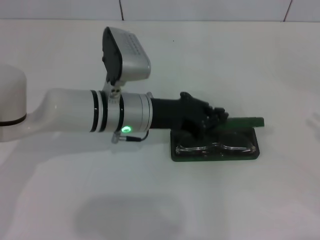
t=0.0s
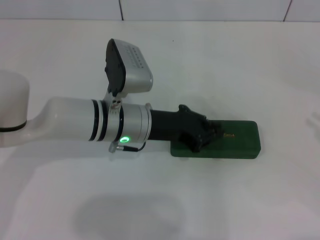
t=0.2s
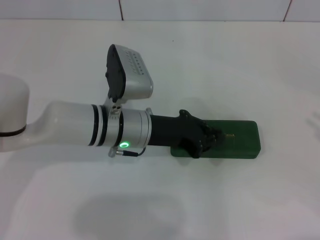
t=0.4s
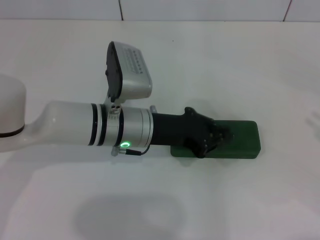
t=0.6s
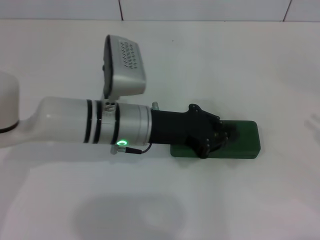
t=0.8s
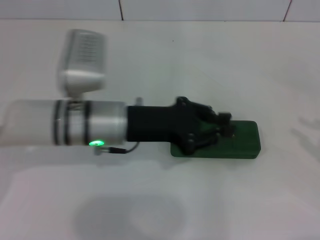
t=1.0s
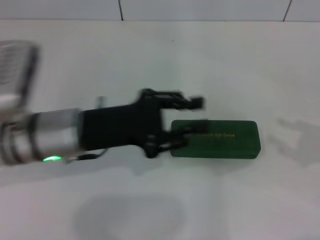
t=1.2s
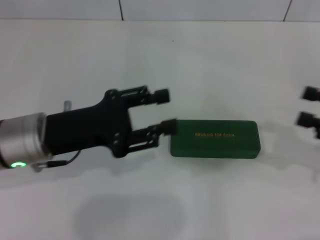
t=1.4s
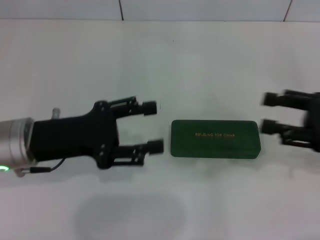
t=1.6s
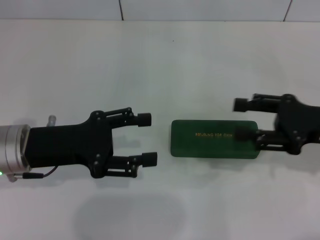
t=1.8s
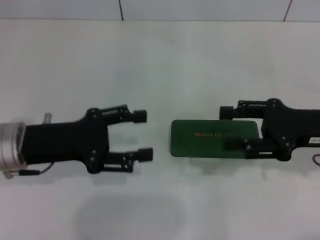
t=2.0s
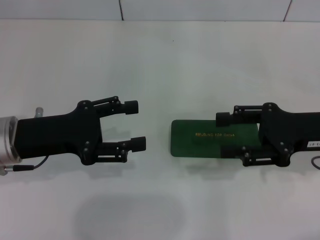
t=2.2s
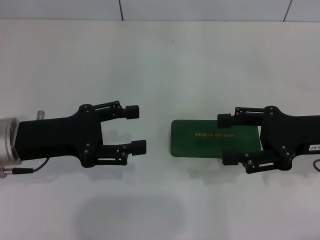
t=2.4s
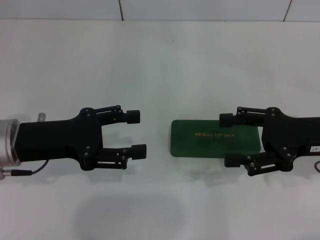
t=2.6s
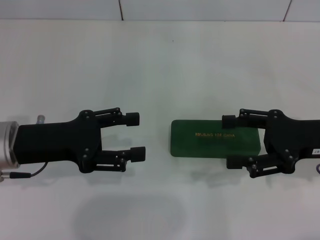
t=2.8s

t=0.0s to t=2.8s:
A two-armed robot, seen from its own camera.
t=0.0s to t=1.4s: The right gripper is displaced to the left and forward by roughly 10 cm. Meanwhile the left gripper is displaced to the left and backward by about 15 cm.
t=1.4s to t=2.8s: The left gripper opens its fingers. Meanwhile the right gripper goes approximately 10 cm to the left, and opens.

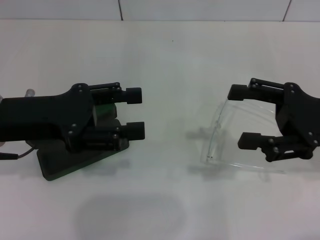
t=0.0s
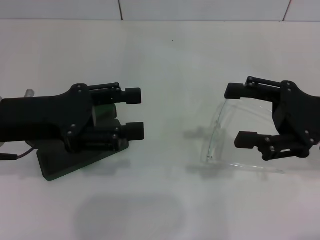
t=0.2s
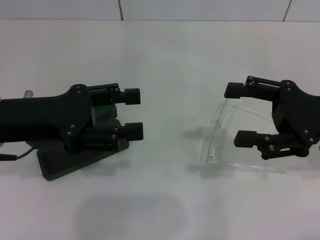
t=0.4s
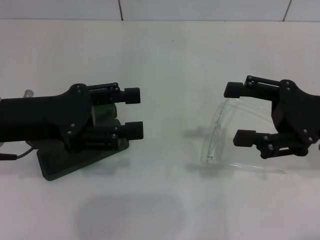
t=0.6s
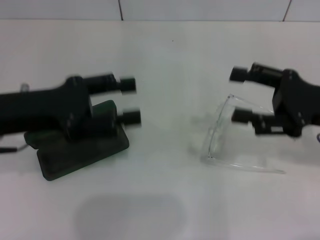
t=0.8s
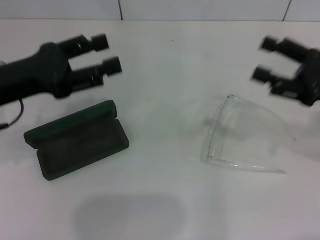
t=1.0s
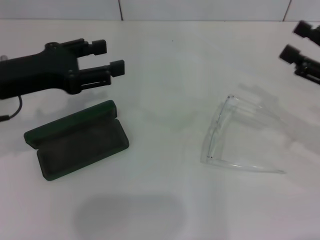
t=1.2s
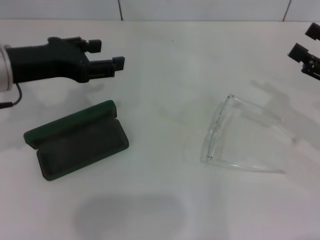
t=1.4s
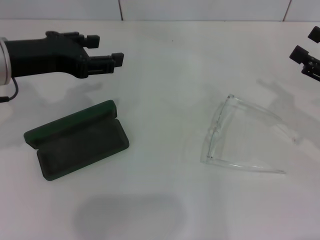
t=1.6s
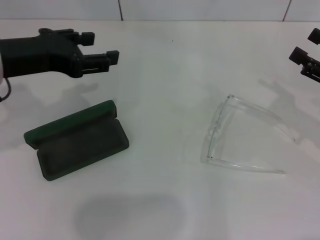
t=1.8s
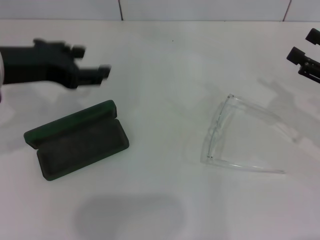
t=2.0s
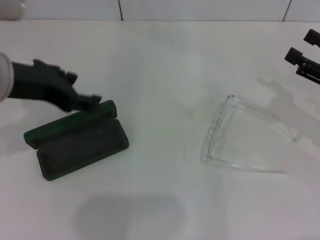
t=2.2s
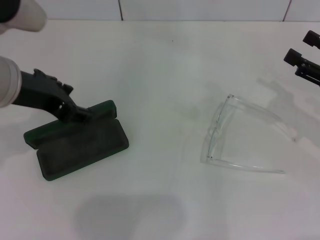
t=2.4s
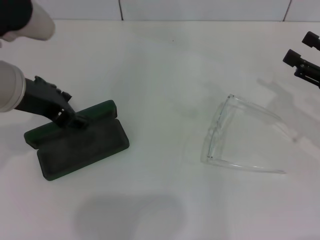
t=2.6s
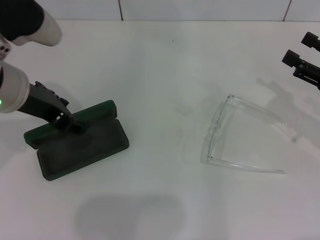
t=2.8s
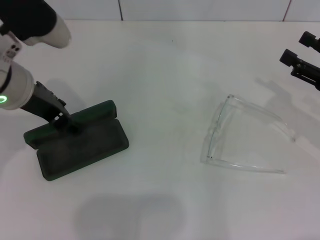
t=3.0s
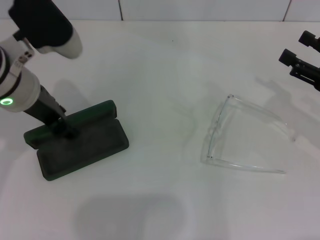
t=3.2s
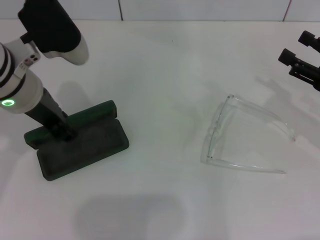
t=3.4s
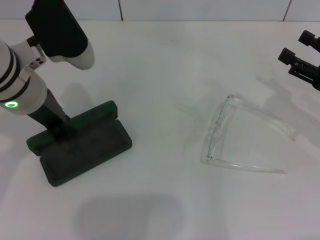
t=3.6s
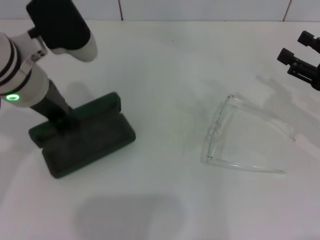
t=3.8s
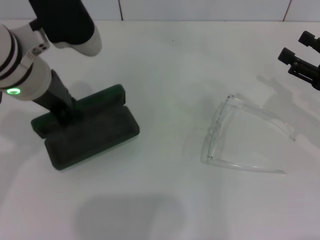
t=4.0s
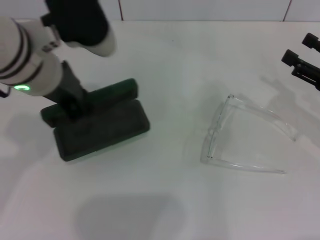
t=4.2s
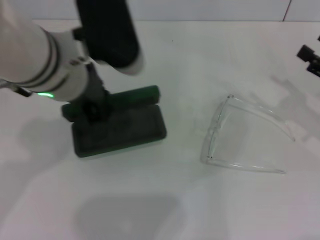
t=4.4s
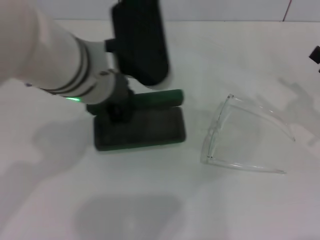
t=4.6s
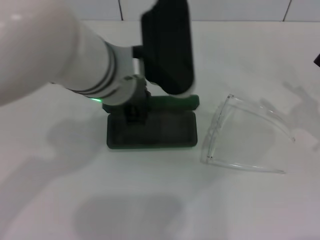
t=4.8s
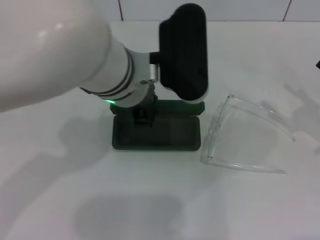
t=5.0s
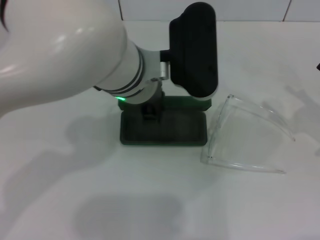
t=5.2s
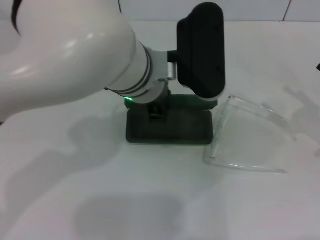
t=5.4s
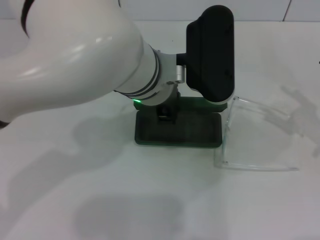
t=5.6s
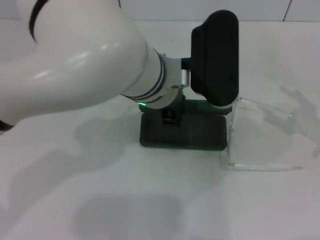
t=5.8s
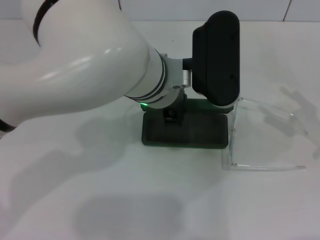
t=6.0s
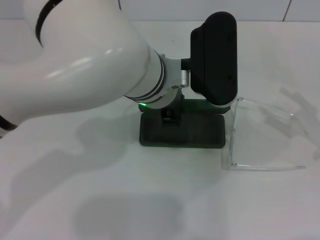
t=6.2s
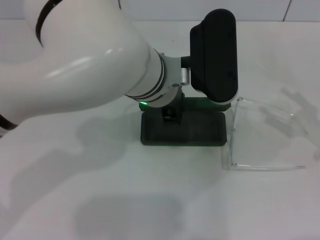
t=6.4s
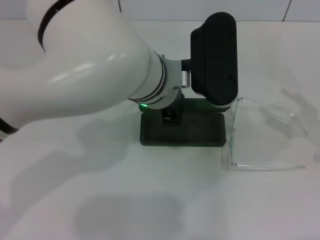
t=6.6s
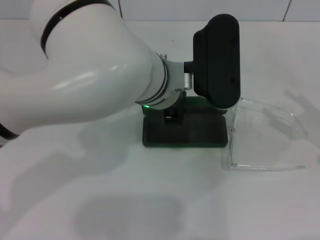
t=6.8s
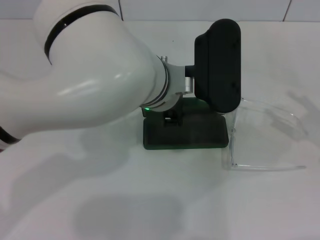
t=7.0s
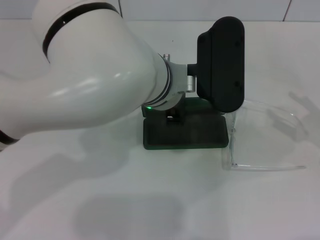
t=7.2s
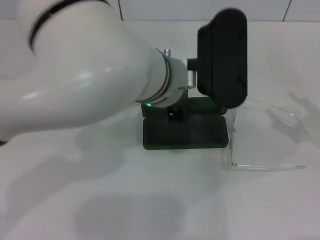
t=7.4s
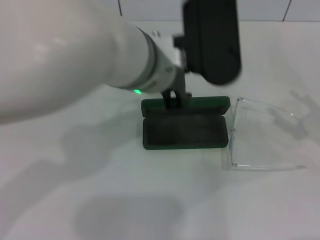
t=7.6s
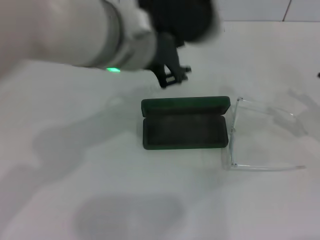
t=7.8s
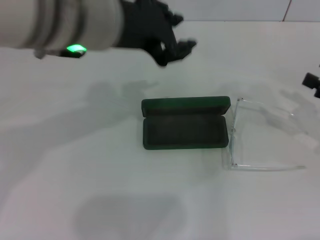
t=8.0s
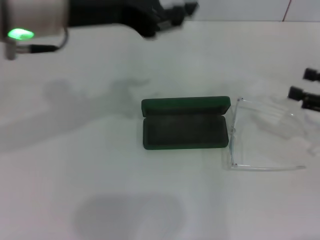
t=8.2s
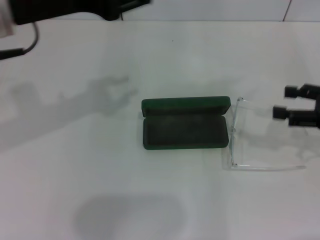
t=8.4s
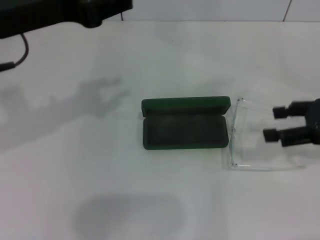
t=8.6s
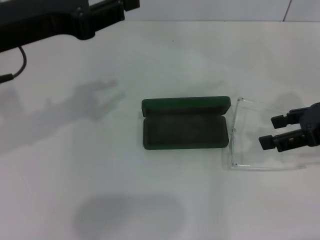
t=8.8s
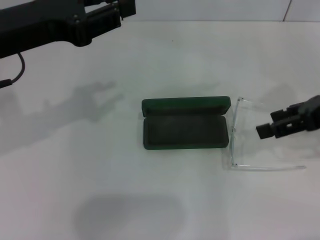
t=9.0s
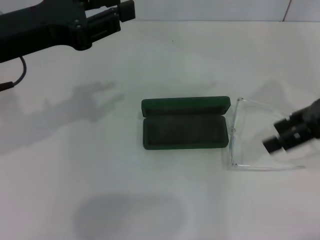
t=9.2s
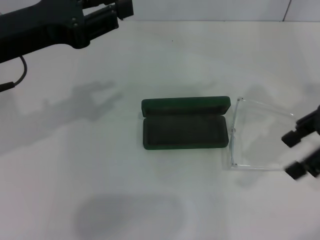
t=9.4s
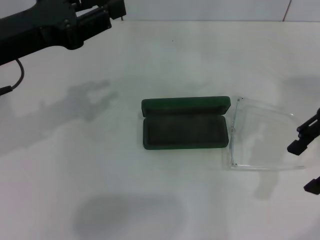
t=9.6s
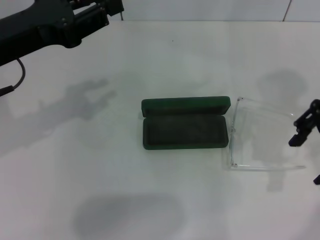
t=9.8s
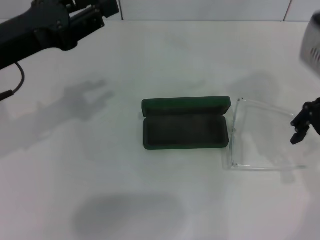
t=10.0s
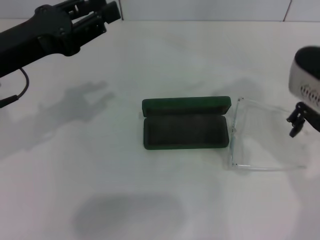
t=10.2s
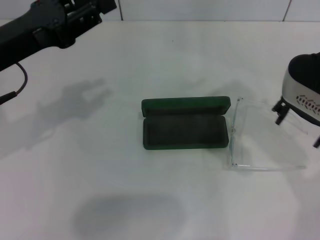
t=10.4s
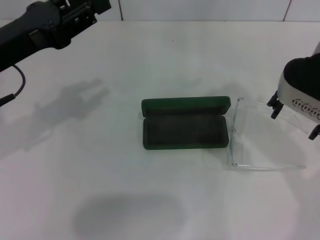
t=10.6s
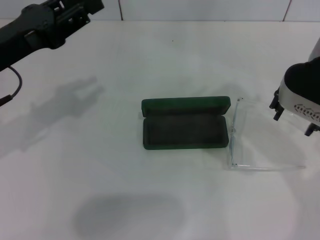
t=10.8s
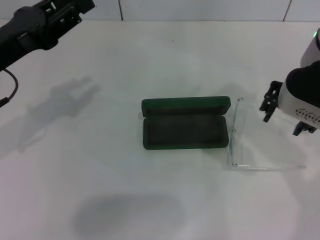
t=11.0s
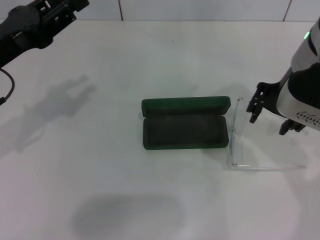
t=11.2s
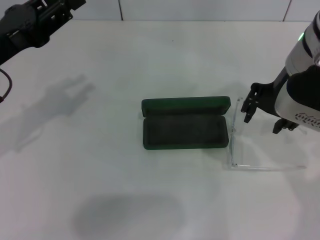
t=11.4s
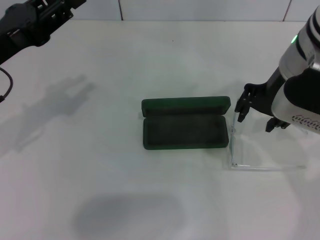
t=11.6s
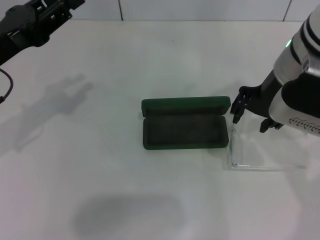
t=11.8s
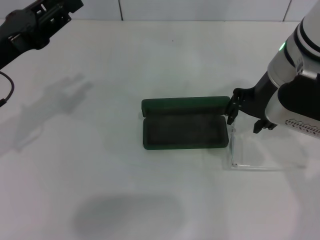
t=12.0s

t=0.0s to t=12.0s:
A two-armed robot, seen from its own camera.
Step, t=0.0s to t=3.2s: Grab the glasses case with your left hand.
Step, t=3.4s to t=7.0s: Place the glasses case in the center of the table with your left hand.
t=0.0s to t=1.6s: The left gripper ends up roughly 5 cm from where it was. Meanwhile the right gripper heads to the right, covering approximately 5 cm.
t=3.0s to t=4.4s: The left gripper moves to the right, roughly 10 cm, and closes up.
t=4.4s to t=6.0s: The left gripper travels to the right by approximately 10 cm.
t=6.0s to t=7.6s: There are only small adjustments of the grippers.
t=7.6s to t=9.0s: The left gripper goes some 20 cm to the left, while the right gripper travels upward, to the left and forward by roughly 15 cm.
t=9.0s to t=10.4s: The right gripper shifts approximately 10 cm to the left.
t=10.4s to t=12.0s: The right gripper moves some 5 cm.

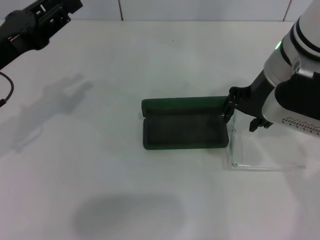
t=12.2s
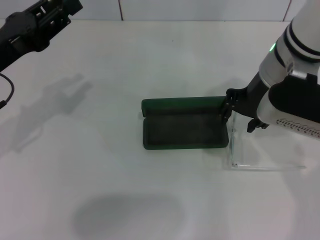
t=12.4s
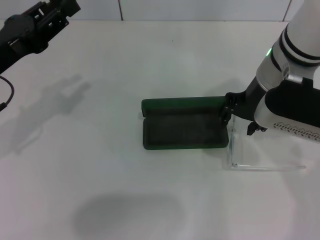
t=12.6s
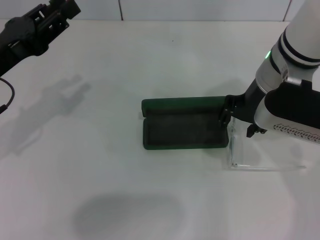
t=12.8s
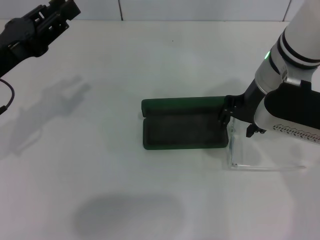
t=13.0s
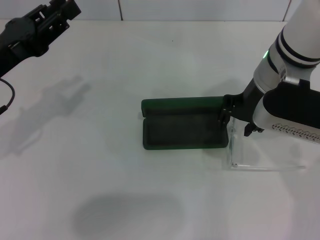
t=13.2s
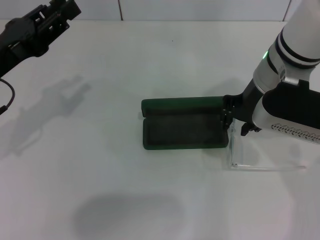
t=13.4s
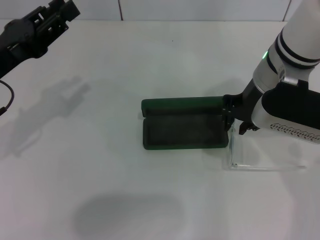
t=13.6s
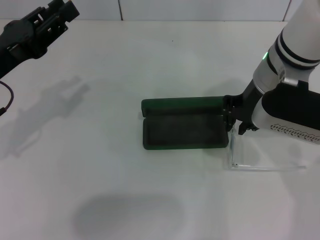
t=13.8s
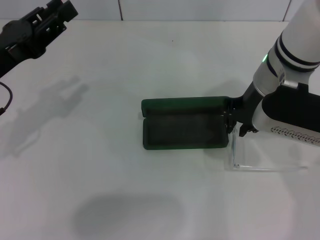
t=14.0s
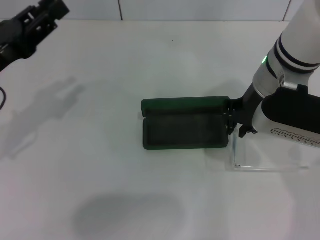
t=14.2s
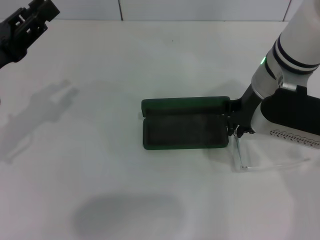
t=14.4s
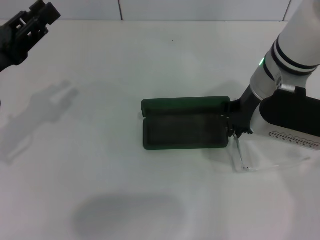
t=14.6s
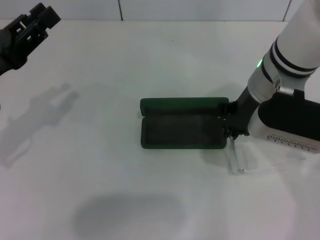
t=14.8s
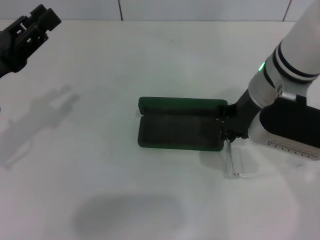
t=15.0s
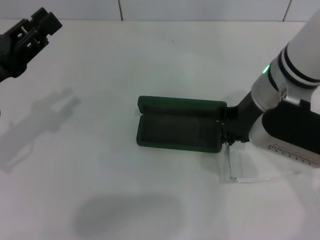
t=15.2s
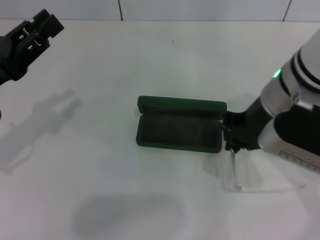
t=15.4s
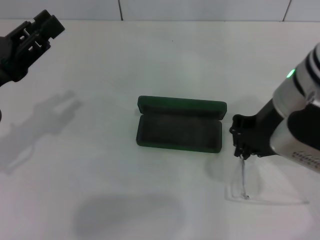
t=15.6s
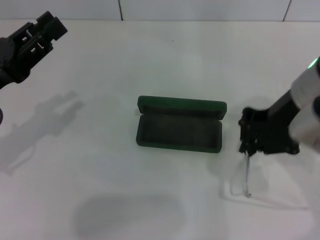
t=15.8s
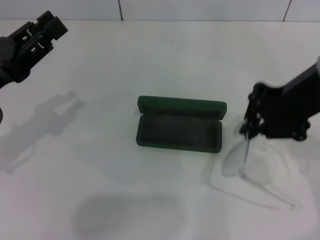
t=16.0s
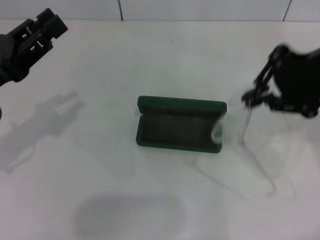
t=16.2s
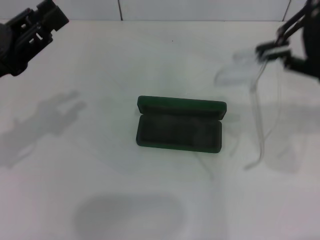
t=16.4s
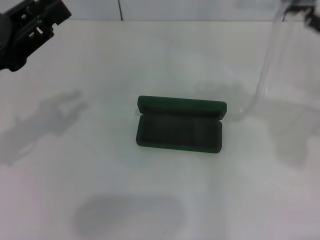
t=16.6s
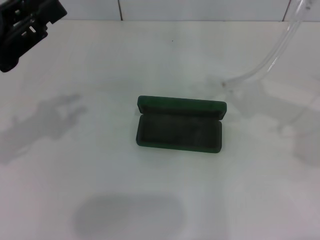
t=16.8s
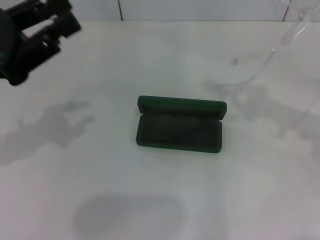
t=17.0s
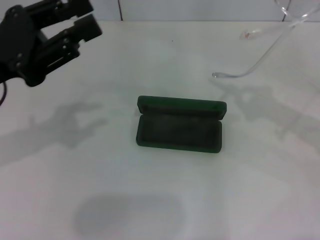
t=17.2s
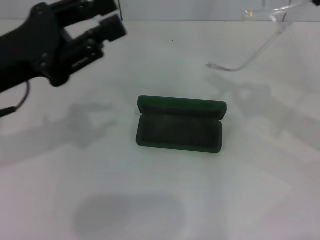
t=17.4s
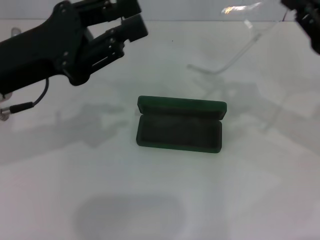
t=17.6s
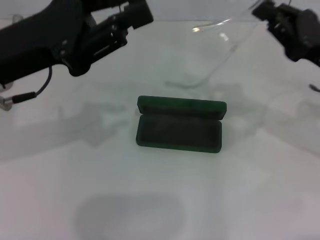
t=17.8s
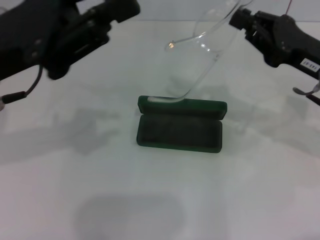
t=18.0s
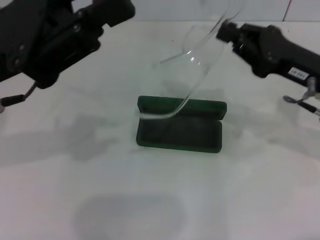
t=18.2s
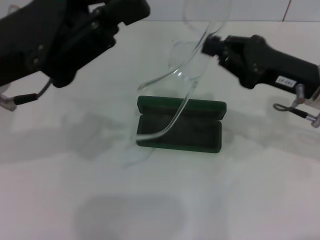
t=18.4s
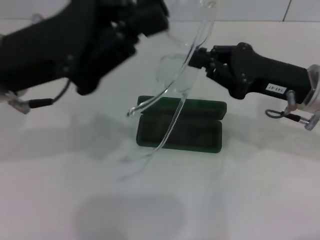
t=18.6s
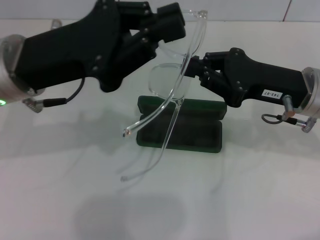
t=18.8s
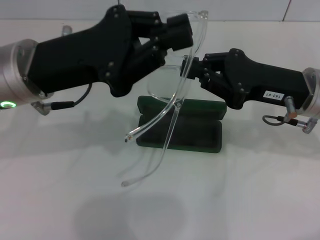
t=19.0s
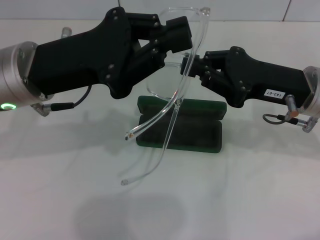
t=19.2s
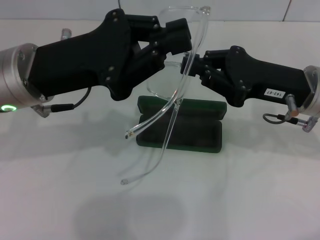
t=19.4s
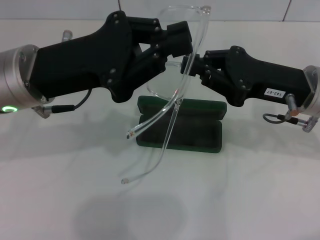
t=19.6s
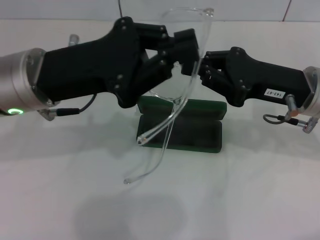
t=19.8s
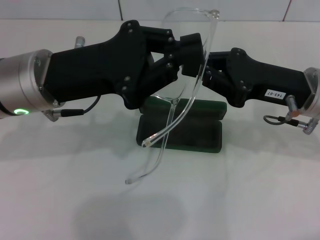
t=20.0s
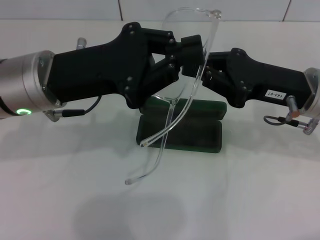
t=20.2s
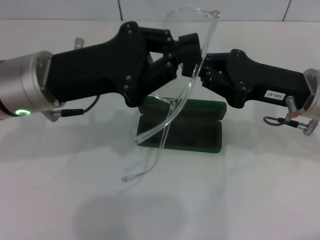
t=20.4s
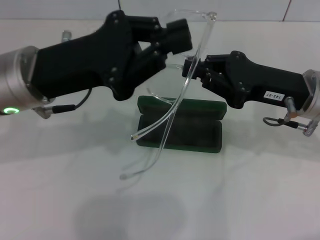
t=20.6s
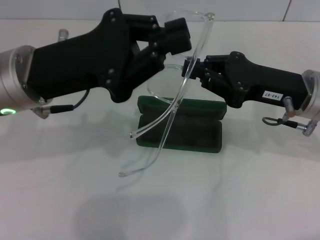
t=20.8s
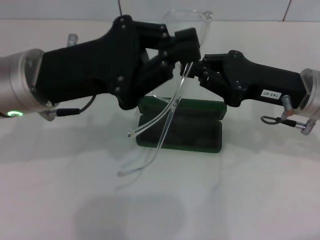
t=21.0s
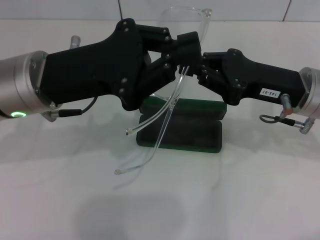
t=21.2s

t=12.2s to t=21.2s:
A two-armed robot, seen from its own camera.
Step, t=12.2s to t=14.6s: Grab the eyeglass frame with your right hand.
t=12.2s to t=13.8s: The right gripper closes.
t=13.8s to t=15.2s: There are only small adjustments of the grippers.
t=15.2s to t=16.6s: The right gripper is displaced to the right and upward by roughly 20 cm.
t=16.6s to t=18.2s: The left gripper travels to the right by about 5 cm, while the right gripper shifts some 15 cm downward.
t=18.2s to t=19.8s: The left gripper shifts by about 5 cm, and closes up.
t=19.8s to t=21.2s: Both grippers stay put.
